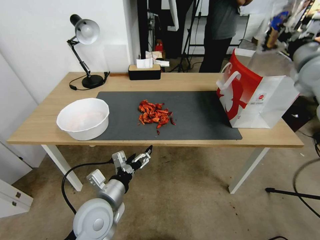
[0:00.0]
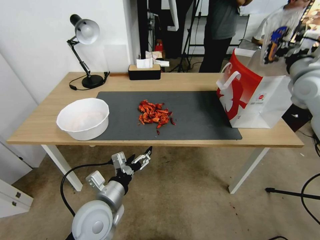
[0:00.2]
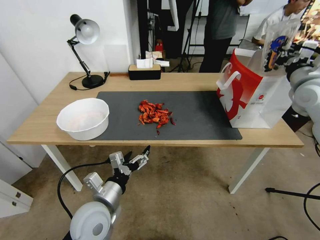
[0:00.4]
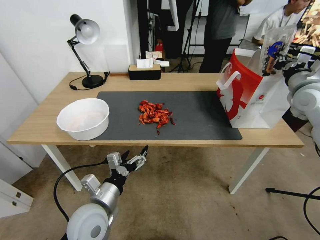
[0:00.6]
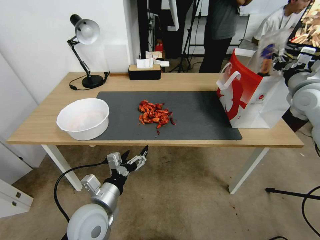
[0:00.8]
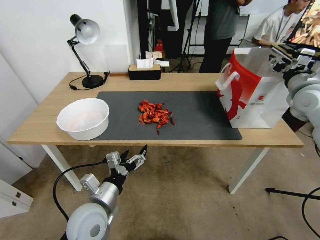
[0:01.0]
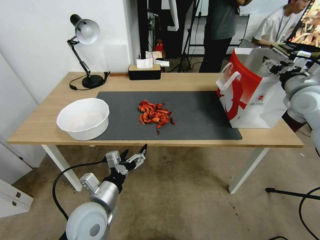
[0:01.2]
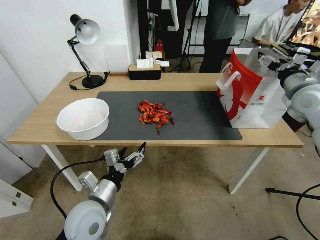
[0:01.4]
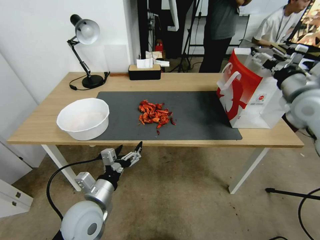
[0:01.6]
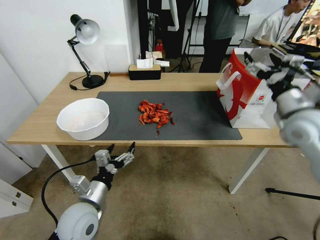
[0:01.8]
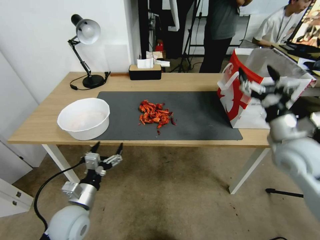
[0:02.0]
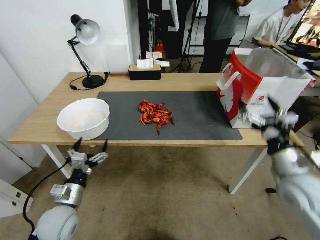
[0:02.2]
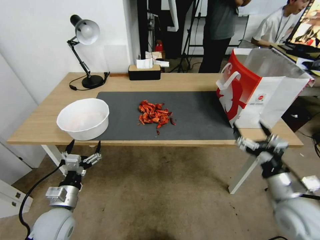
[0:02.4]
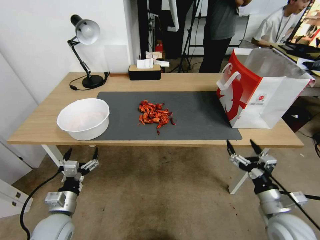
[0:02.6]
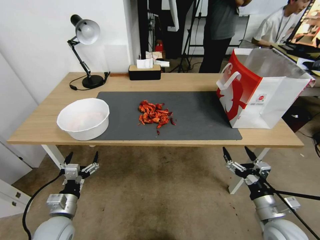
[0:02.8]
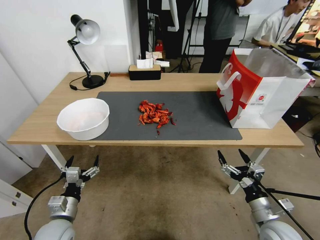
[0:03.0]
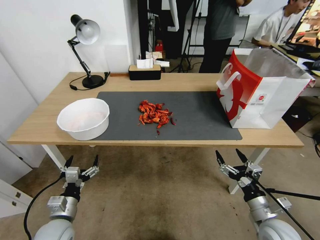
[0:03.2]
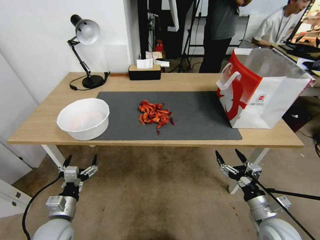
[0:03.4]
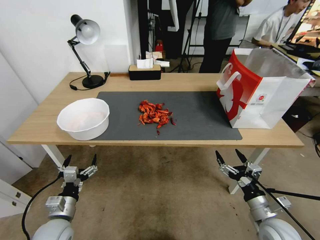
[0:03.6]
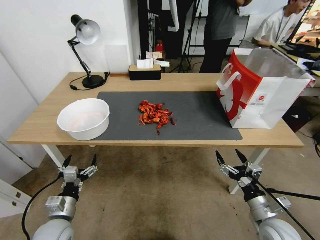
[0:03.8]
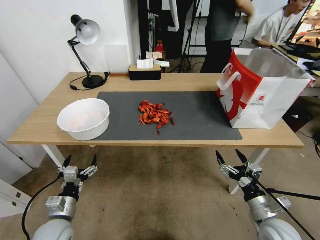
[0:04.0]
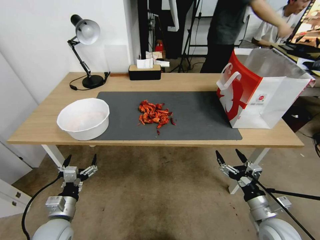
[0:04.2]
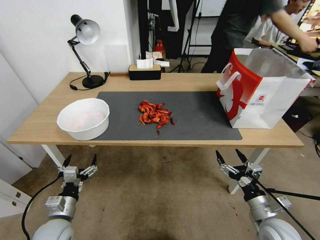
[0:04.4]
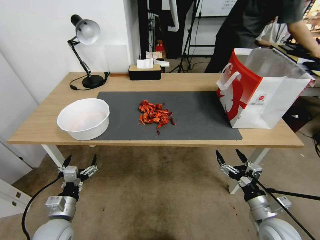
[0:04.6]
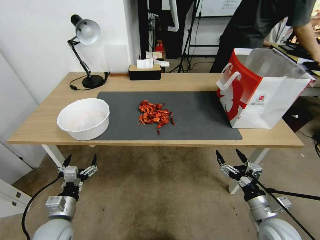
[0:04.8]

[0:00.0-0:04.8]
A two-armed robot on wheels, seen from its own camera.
0:00.0 to 0:01.6: The right gripper is displaced downward and backward by about 10 cm, and opens its fingers.
0:01.6 to 0:03.2: The right gripper moves downward and backward, some 40 cm; the left gripper heads to the left and downward, covering approximately 15 cm.
0:03.2 to 0:04.8: Neither gripper changes place.
